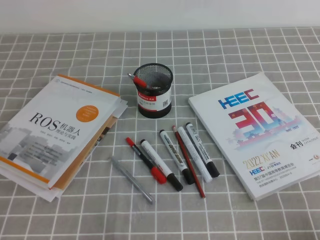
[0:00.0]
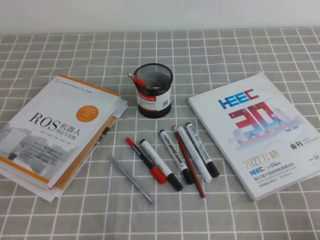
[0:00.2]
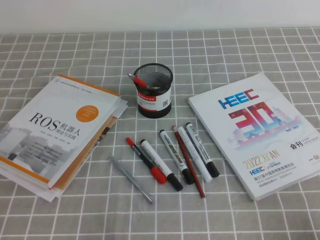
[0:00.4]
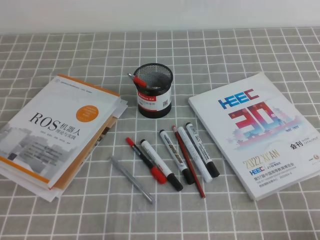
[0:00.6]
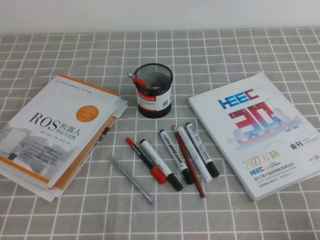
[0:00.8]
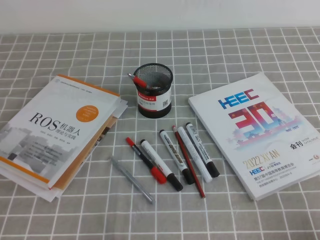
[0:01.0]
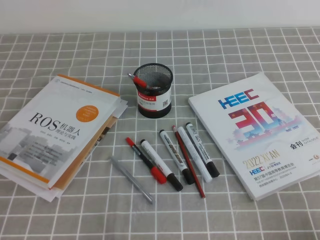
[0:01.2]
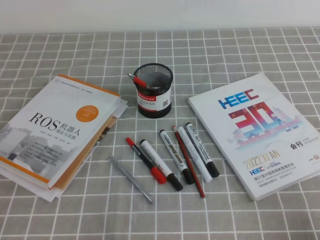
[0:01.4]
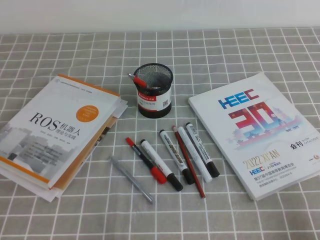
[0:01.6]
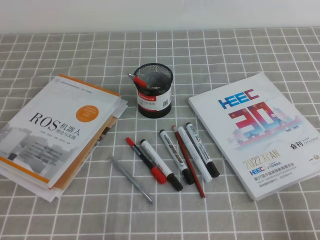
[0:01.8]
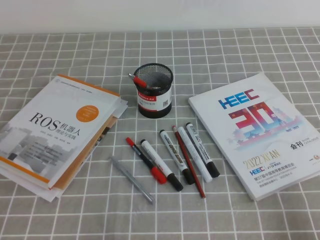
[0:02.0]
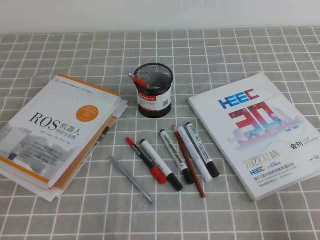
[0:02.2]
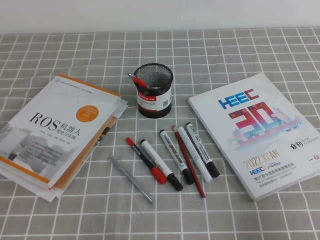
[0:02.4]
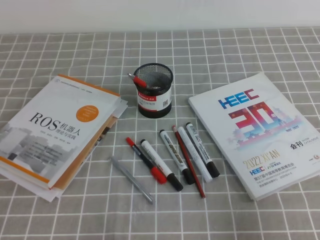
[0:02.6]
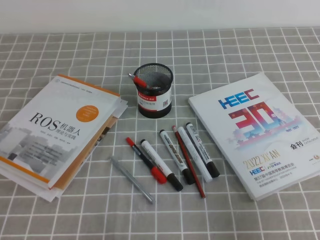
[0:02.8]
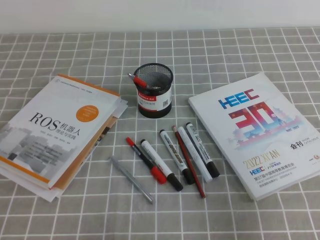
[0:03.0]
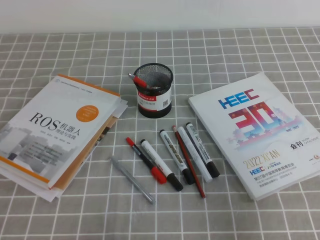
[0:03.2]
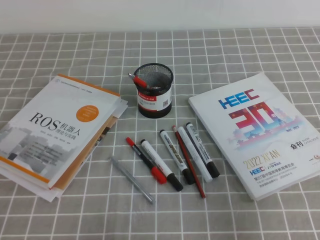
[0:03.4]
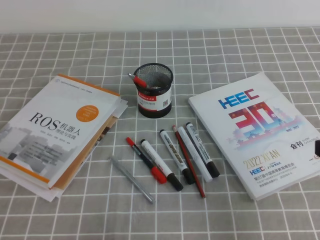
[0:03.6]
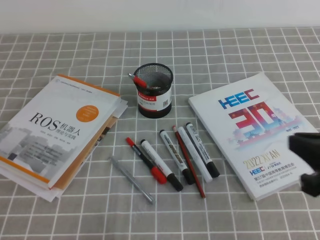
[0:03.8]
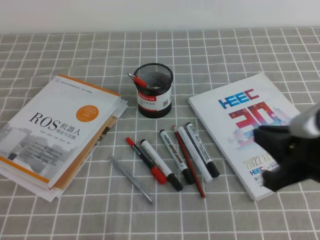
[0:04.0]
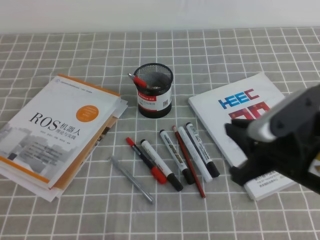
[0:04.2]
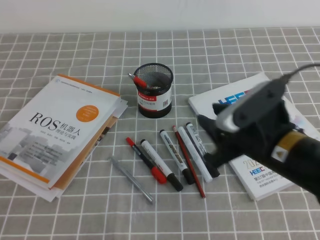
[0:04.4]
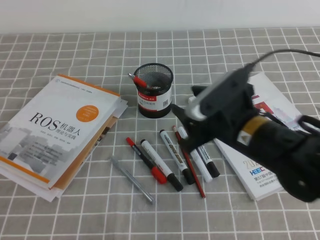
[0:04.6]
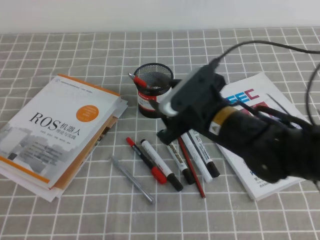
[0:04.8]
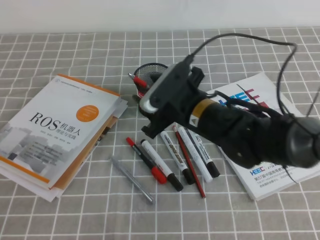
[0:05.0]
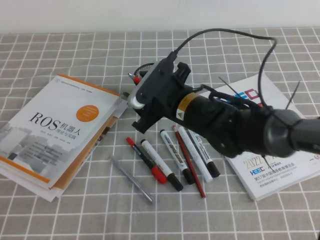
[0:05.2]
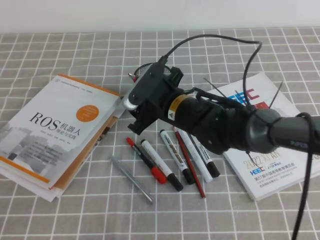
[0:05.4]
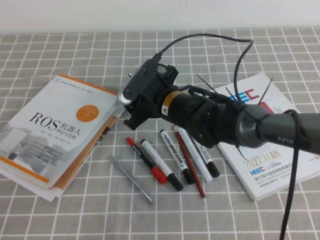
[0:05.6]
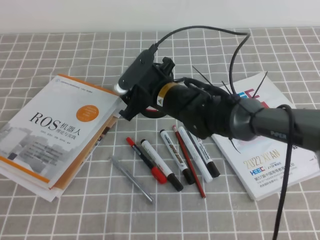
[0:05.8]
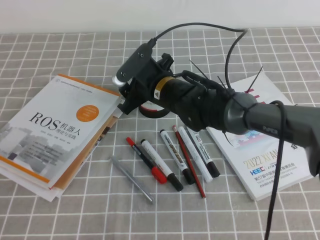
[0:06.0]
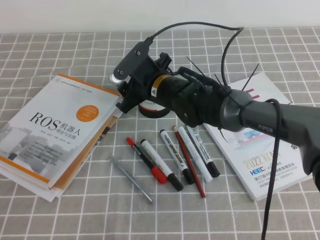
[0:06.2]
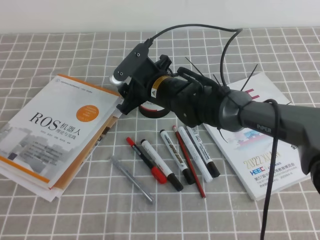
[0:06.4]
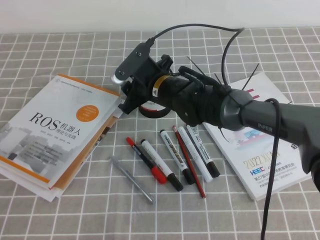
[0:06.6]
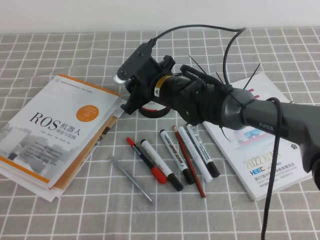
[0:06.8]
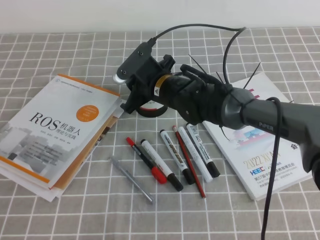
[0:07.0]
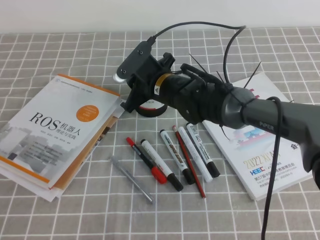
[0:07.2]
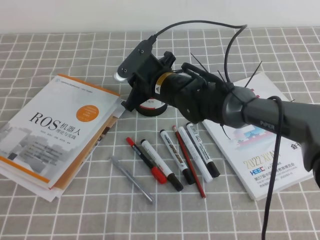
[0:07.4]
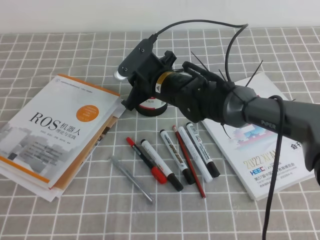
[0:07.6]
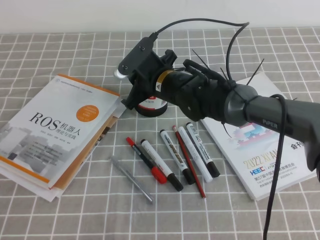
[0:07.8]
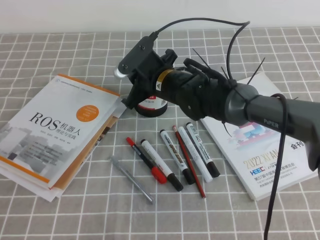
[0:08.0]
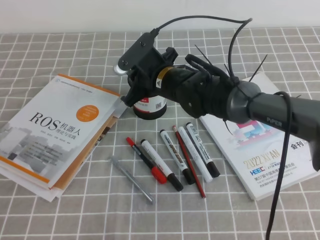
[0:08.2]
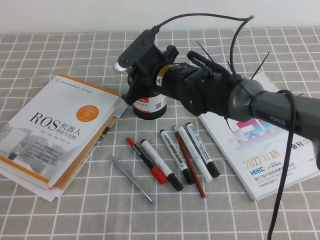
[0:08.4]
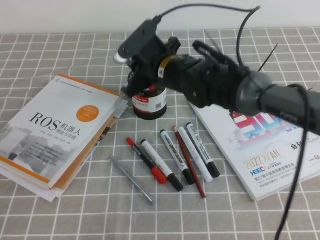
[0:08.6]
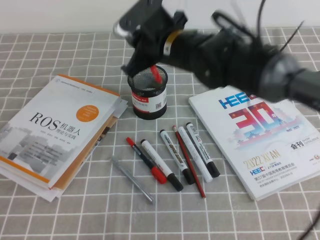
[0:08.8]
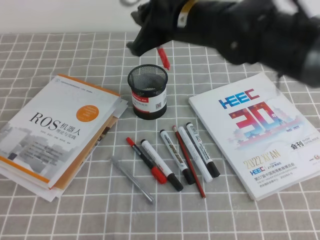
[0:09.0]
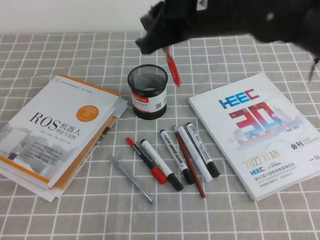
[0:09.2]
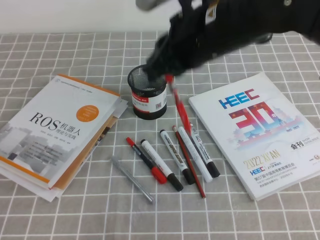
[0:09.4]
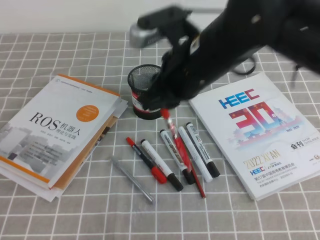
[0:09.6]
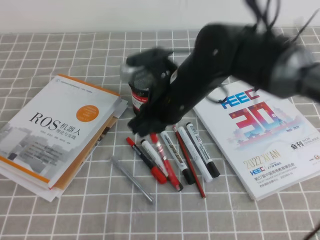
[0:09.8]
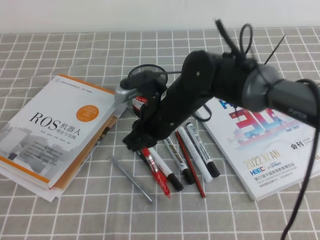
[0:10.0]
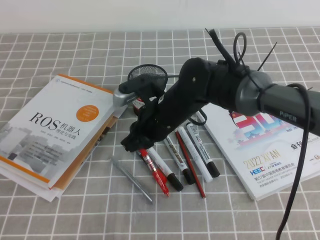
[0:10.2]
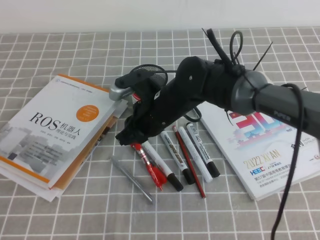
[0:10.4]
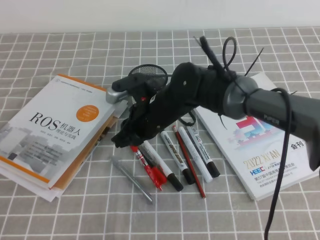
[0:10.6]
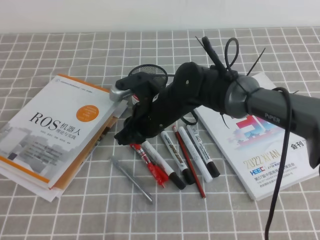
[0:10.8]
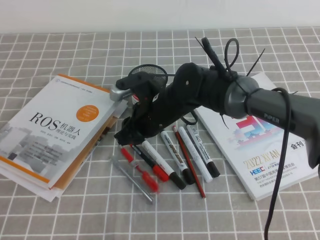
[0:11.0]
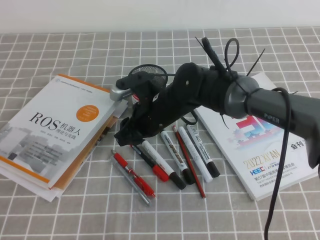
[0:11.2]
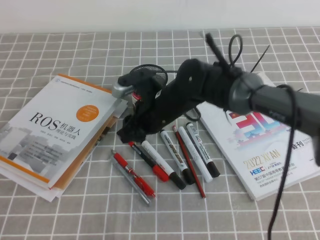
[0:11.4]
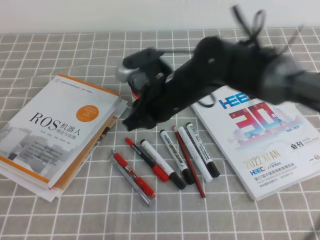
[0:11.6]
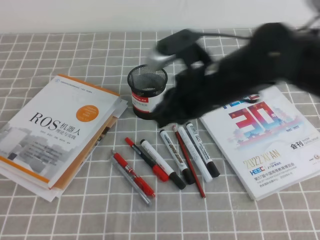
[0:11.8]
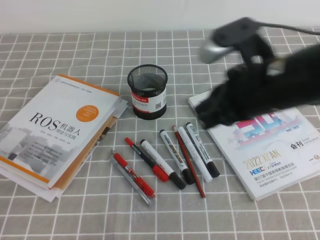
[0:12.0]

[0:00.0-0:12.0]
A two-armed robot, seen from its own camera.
0:01.6 to 0:03.0: The right gripper moves upward and forward, approximately 10 cm.
0:03.0 to 0:04.4: The right gripper travels to the left and forward by roughly 15 cm, and opens up.
0:04.4 to 0:06.0: The right gripper heads forward and to the left, covering roughly 25 cm, and opens up.
0:06.0 to 0:07.6: The right gripper closes.
0:07.6 to 0:09.0: The right gripper is displaced upward by some 15 cm.
0:09.0 to 0:10.4: The right gripper shifts some 15 cm downward.
0:10.4 to 0:12.0: The right gripper moves to the right, upward and backward, some 20 cm, and opens and closes again.

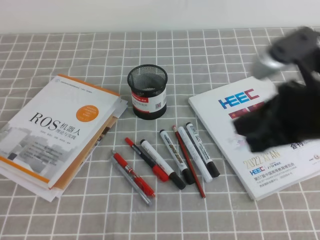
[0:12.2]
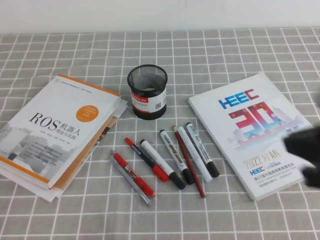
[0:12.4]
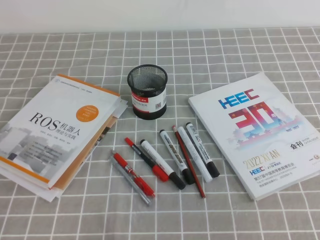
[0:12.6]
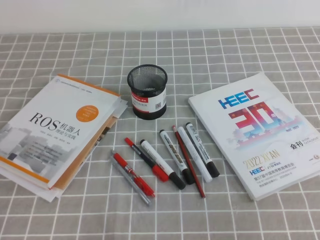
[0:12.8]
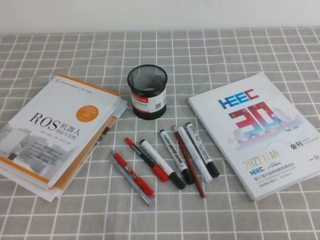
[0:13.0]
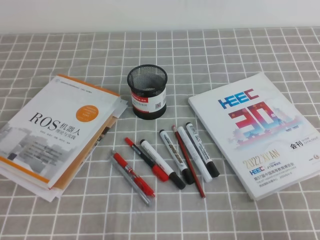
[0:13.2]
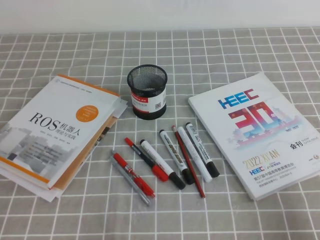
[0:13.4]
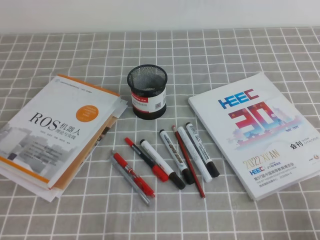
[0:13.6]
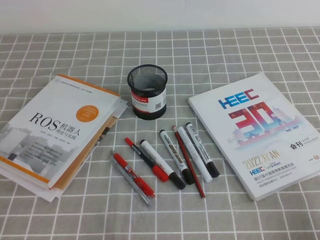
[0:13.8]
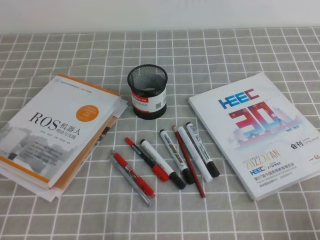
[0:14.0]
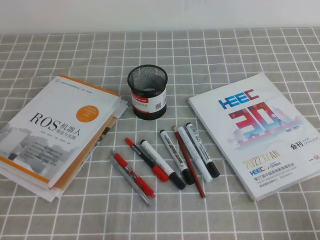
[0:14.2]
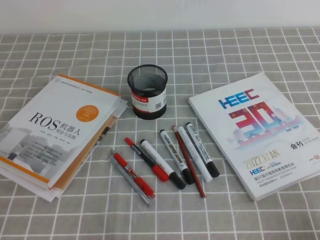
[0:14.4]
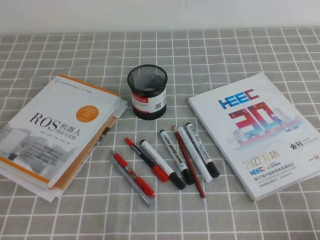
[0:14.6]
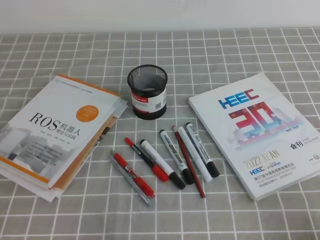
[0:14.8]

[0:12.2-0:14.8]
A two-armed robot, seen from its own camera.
Step, 0:12.2 to 0:14.8: Pick up the pen from the pen holder.
0:12.2 to 0:13.4: The right gripper travels to the right, backward and downward by roughly 25 cm.

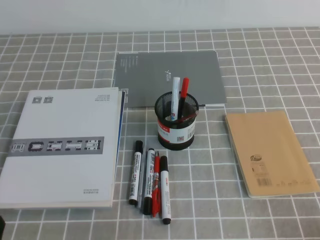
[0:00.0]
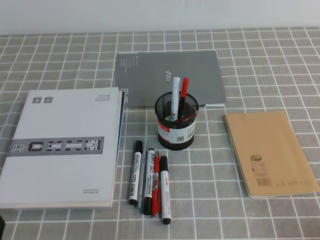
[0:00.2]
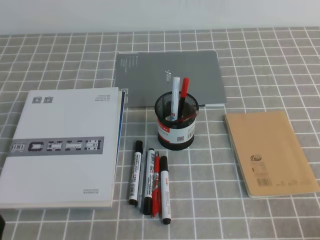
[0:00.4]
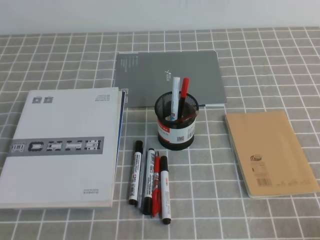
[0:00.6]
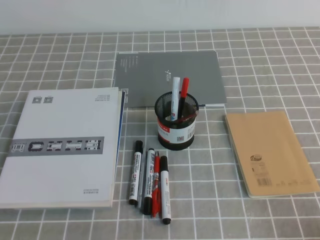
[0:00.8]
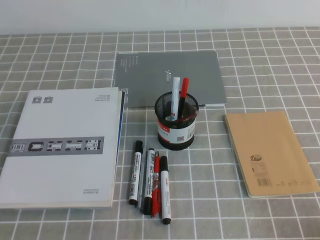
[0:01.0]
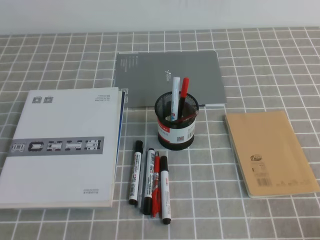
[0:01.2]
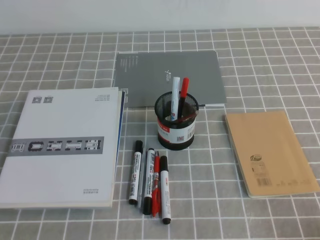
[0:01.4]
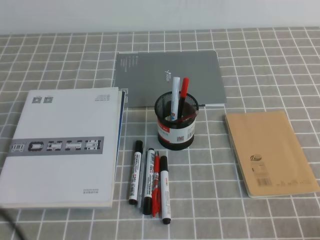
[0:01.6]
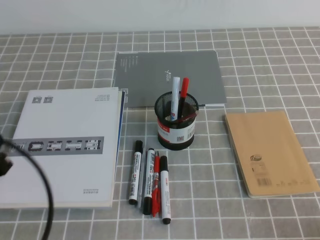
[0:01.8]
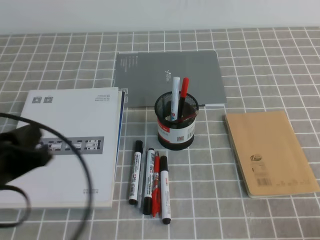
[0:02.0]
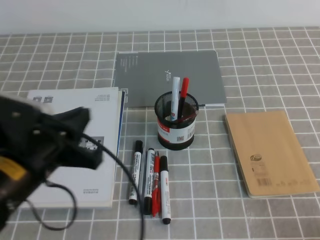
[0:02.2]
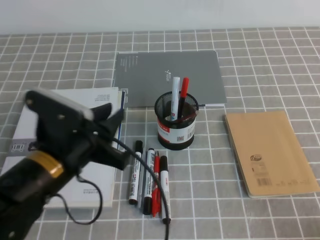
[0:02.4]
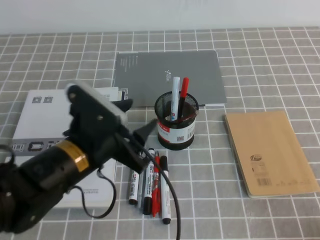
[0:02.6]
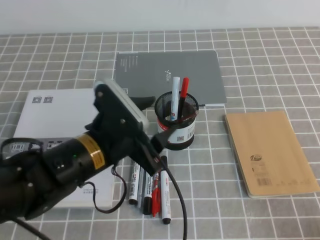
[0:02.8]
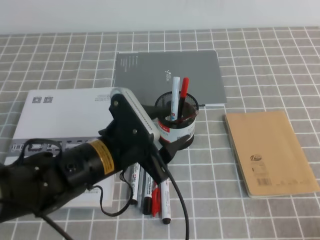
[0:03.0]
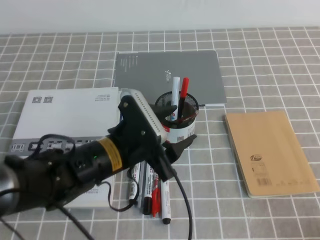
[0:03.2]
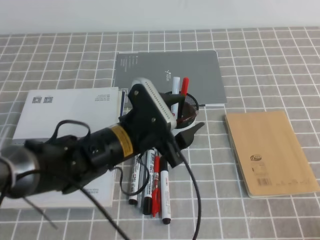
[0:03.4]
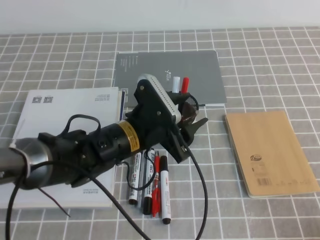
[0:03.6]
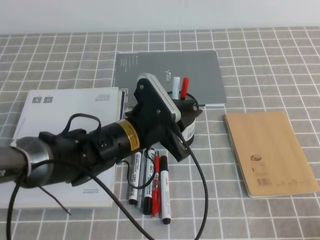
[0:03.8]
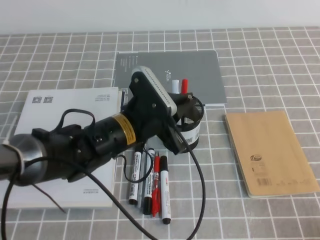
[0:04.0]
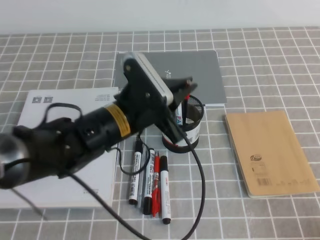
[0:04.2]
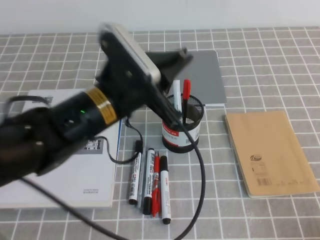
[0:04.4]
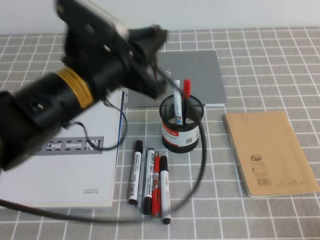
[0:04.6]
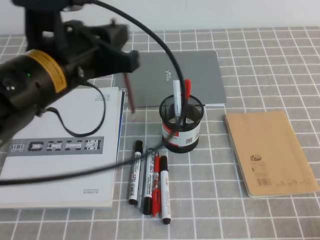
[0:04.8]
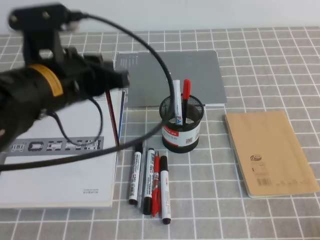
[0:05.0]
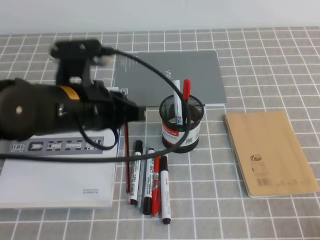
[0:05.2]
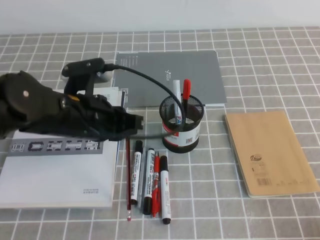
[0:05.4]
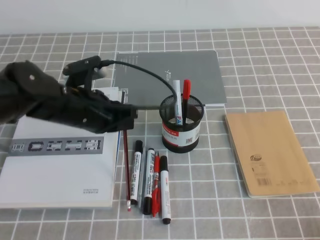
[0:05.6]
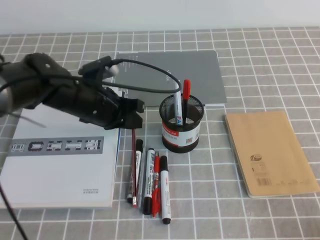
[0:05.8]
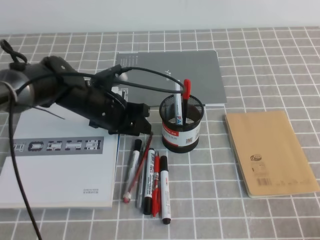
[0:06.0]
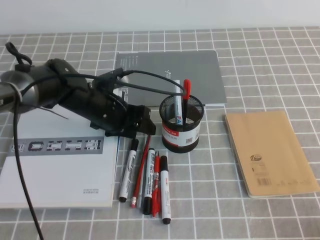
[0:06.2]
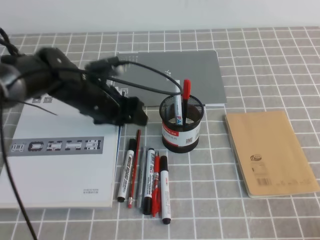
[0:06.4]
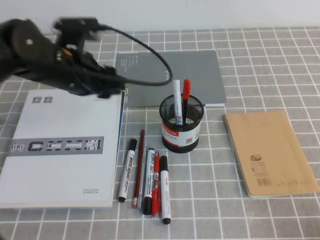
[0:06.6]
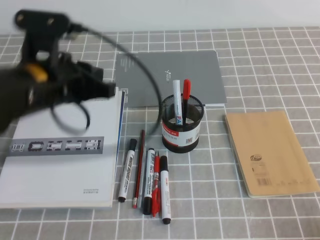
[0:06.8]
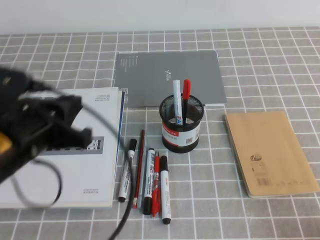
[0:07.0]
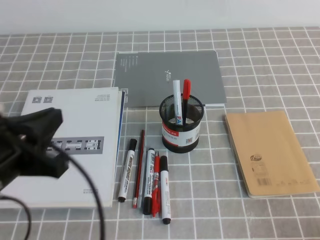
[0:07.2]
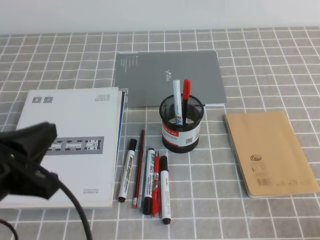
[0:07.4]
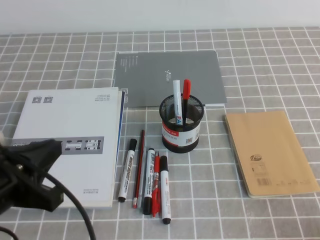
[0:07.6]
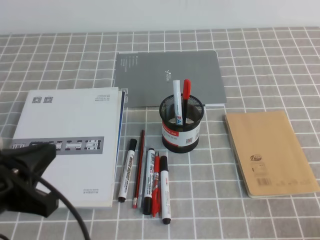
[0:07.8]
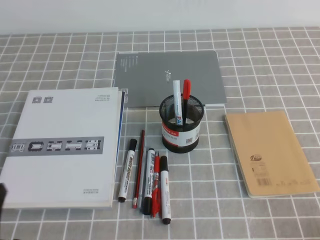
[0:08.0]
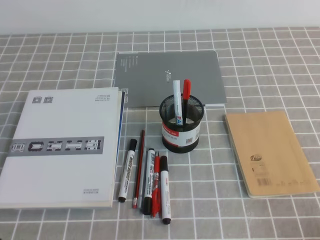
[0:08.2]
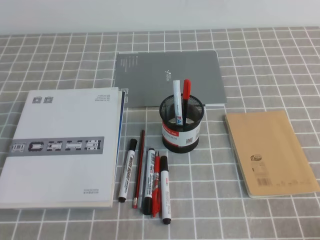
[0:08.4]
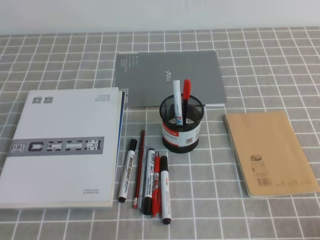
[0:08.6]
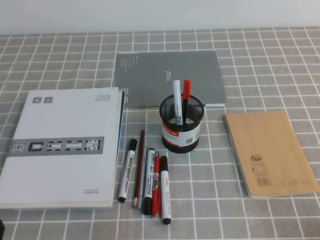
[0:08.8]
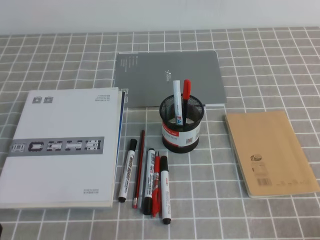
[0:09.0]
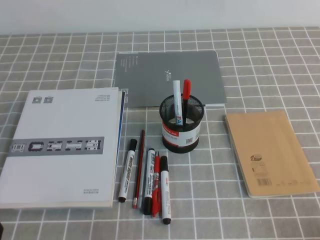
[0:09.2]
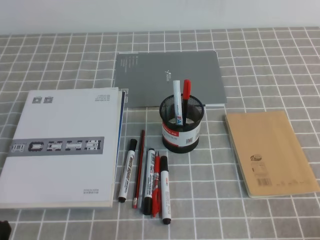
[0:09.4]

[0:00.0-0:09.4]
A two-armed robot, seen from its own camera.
0:01.6 to 0:03.2: The left gripper moves to the right and forward, approximately 25 cm, and opens up.
0:03.2 to 0:04.8: The left gripper goes approximately 15 cm upward, and closes up.
0:04.8 to 0:06.2: The left gripper moves downward and forward, some 20 cm, and opens.
0:06.2 to 0:07.8: The left gripper travels backward and to the left by some 30 cm, and closes its fingers.
0:07.8 to 0:09.4: The left gripper goes roughly 10 cm downward and backward.
